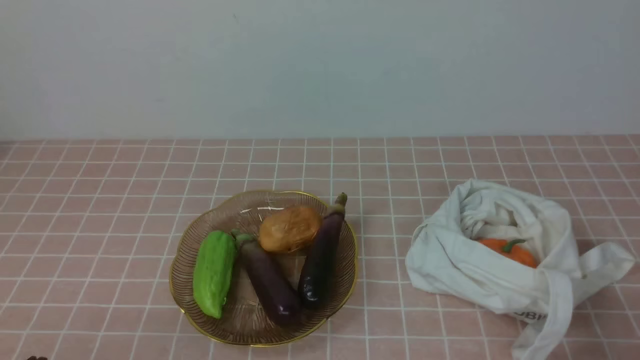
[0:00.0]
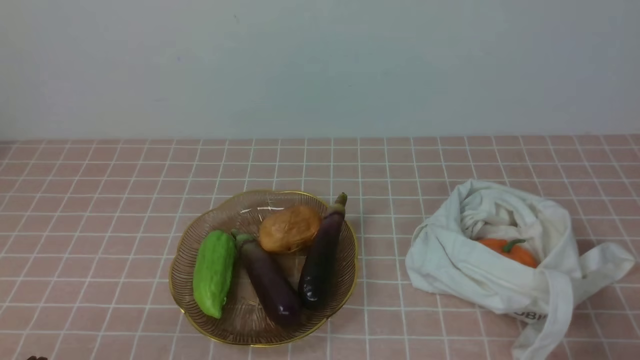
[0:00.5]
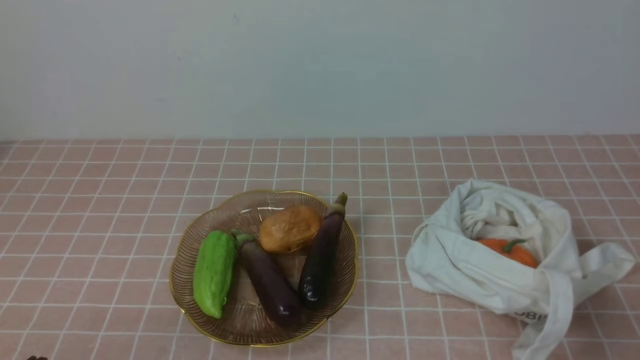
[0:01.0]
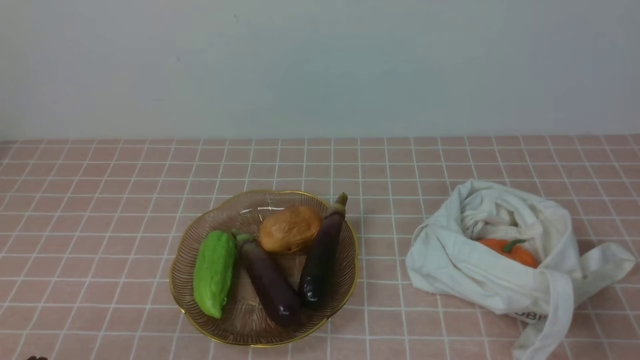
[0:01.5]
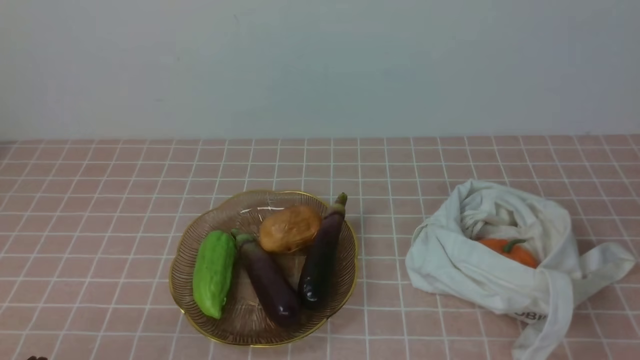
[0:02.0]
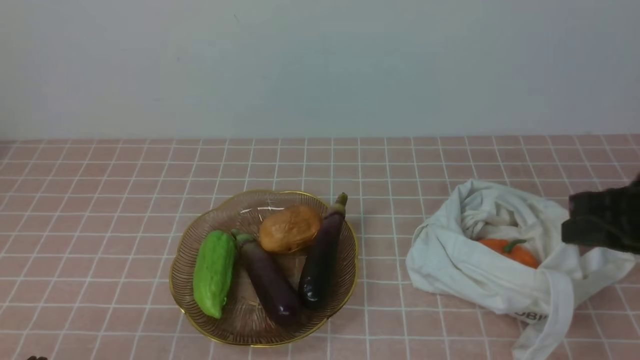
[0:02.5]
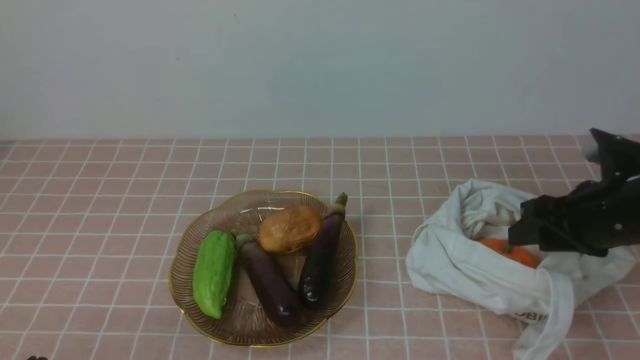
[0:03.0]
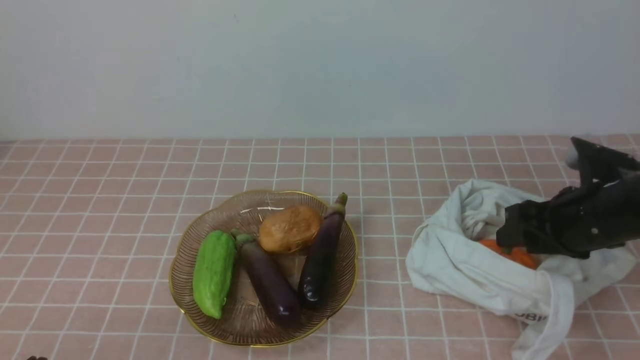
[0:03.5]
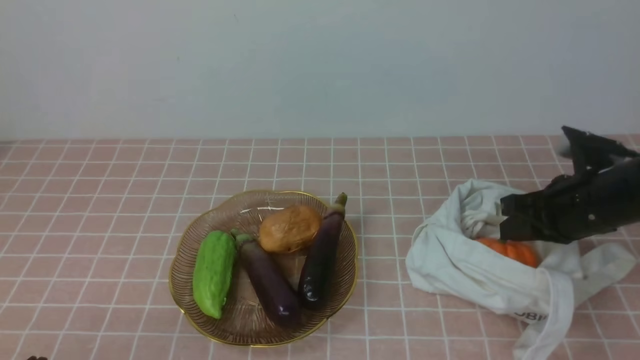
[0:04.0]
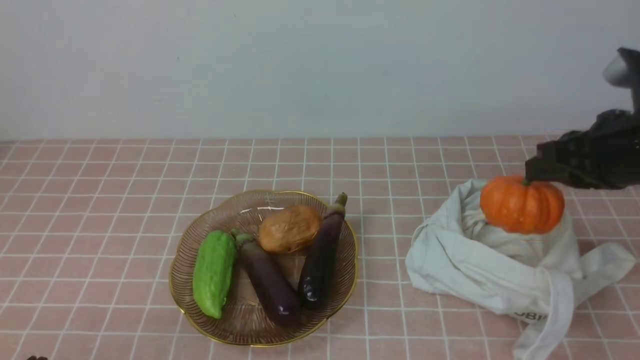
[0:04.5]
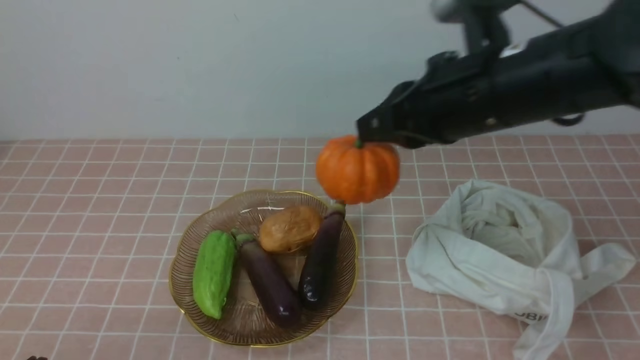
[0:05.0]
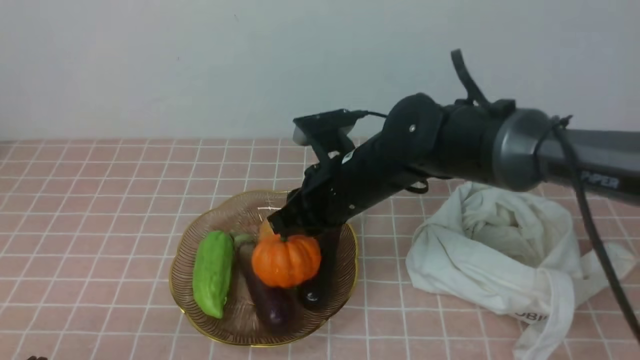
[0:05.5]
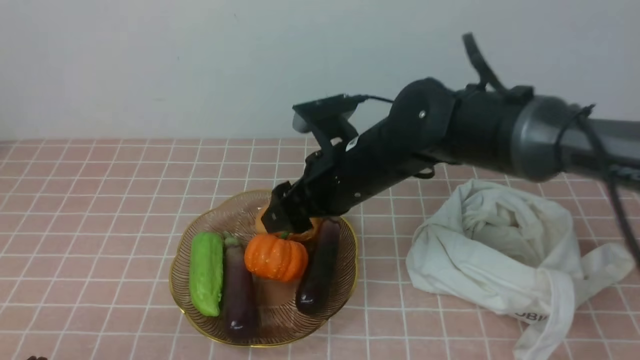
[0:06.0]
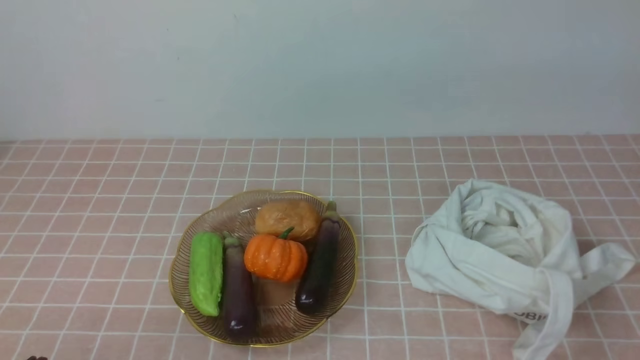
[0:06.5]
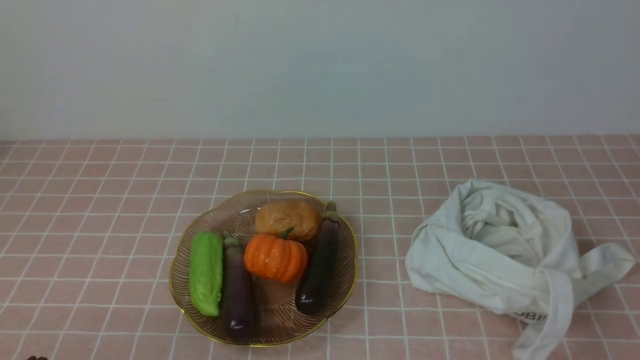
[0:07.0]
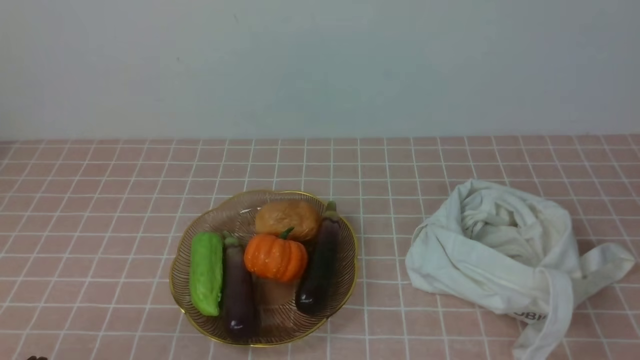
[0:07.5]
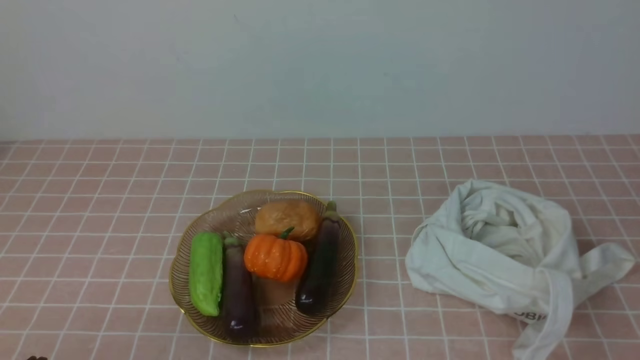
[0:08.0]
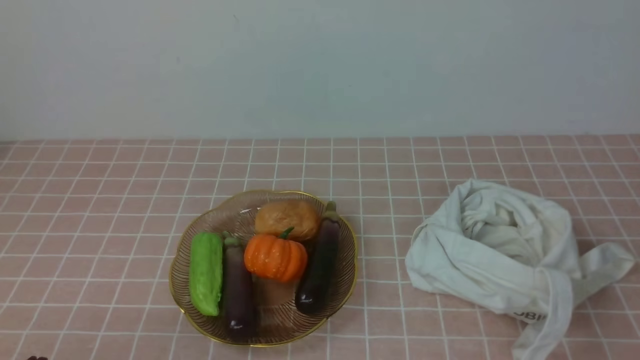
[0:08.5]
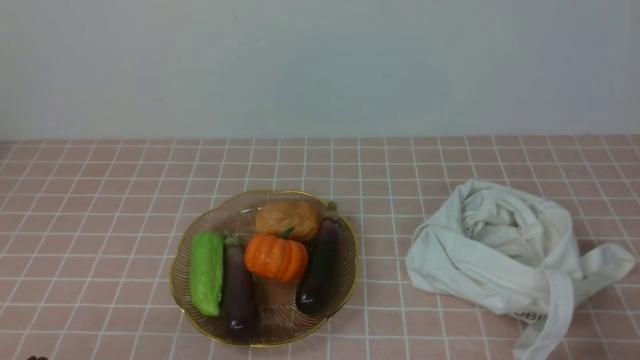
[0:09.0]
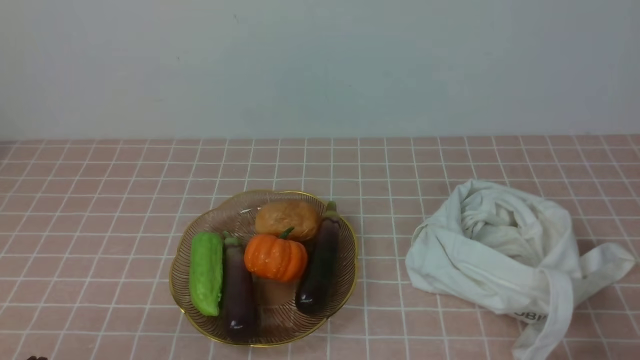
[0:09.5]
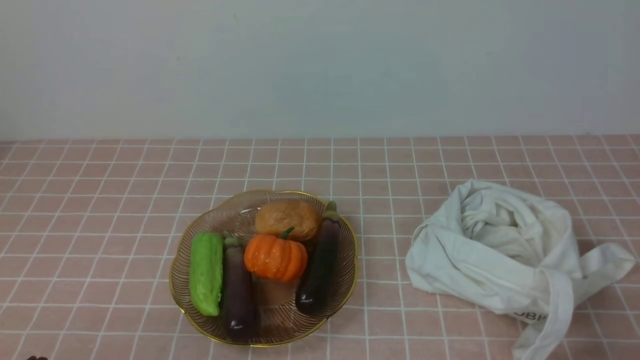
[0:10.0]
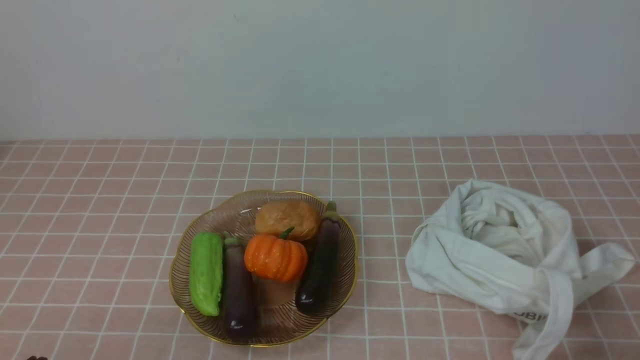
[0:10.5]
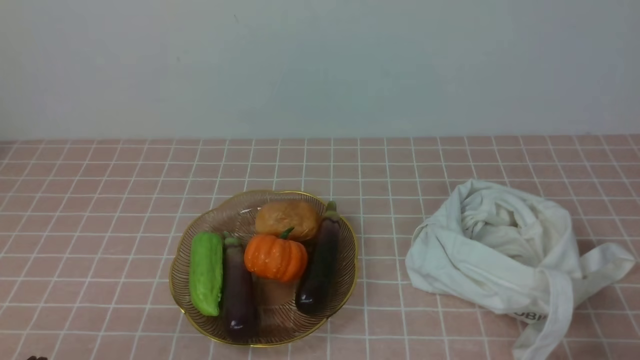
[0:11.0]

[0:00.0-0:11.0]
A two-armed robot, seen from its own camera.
Task of the whole recording: take vegetables from bag on pink coffee tablecloth place on plate.
Step, 0:00.0 to 0:03.5: Grasp the pumpkin with right gripper.
Step, 0:04.0 to 0:06.0: Place the pumpkin on the plate with right gripper.
0:02.0 to 0:03.5: The right gripper shifts about 25 cm forward and downward, and opens.
0:03.5 to 0:05.5: The right gripper goes about 25 cm to the left, and closes.
0:05.5 to 0:07.5: The right gripper is displaced backward, to the right and upward by approximately 40 cm, and opens and closes again.
0:09.0 to 0:11.0: The two grippers keep their place.

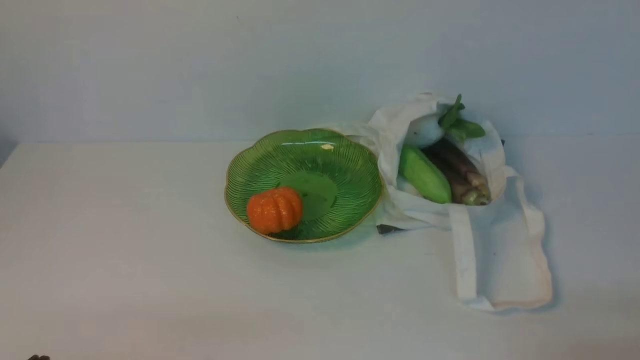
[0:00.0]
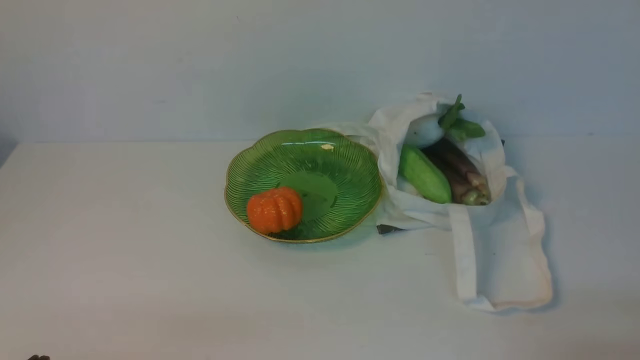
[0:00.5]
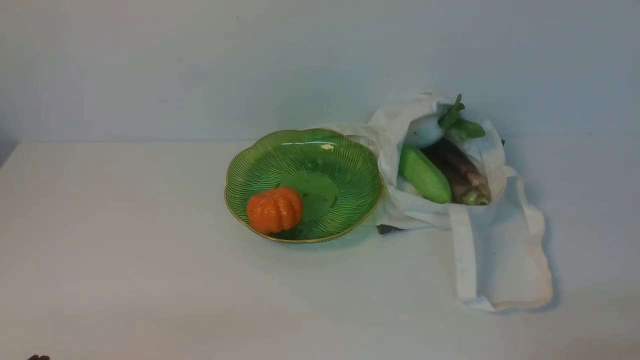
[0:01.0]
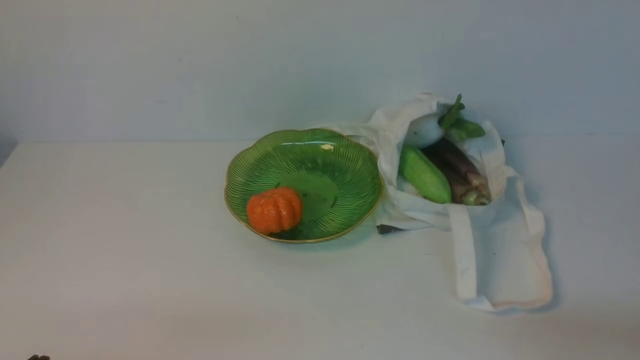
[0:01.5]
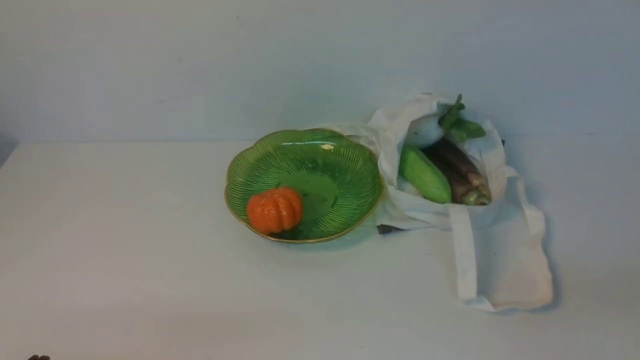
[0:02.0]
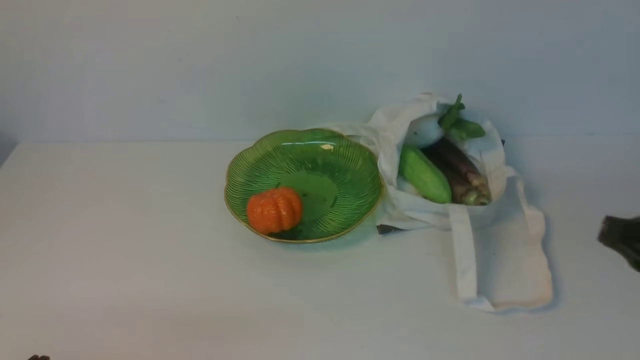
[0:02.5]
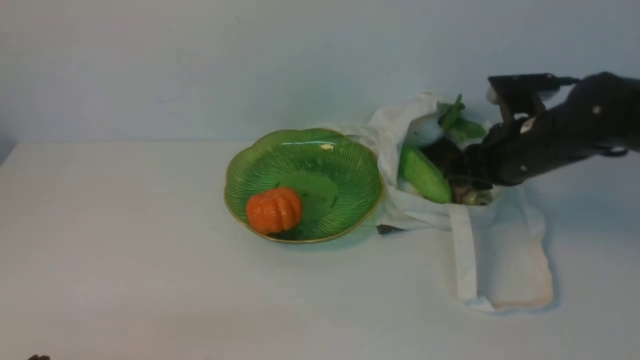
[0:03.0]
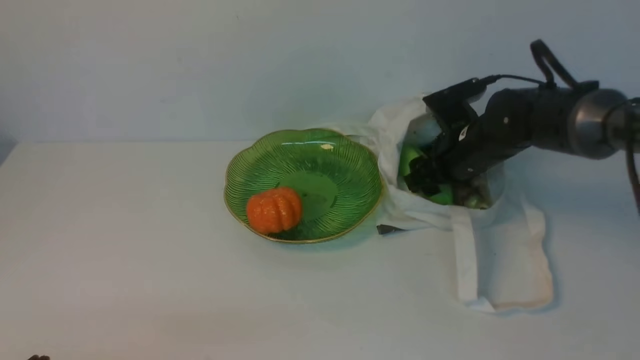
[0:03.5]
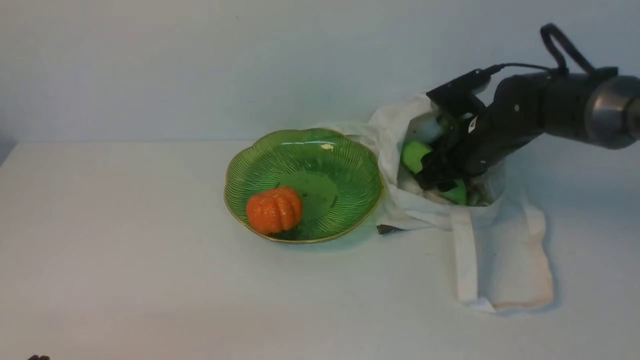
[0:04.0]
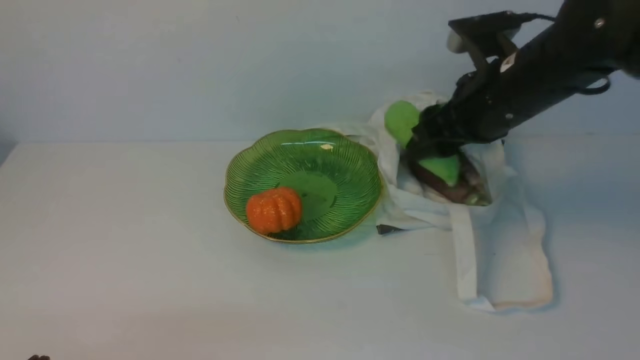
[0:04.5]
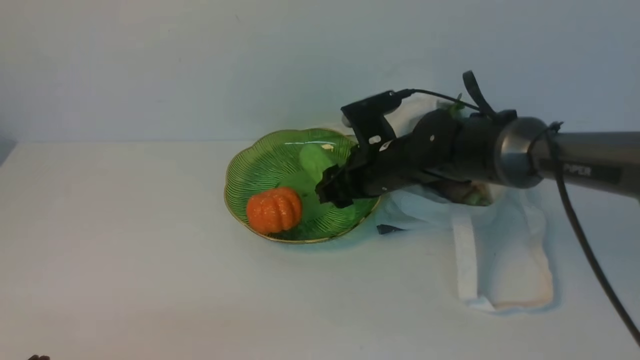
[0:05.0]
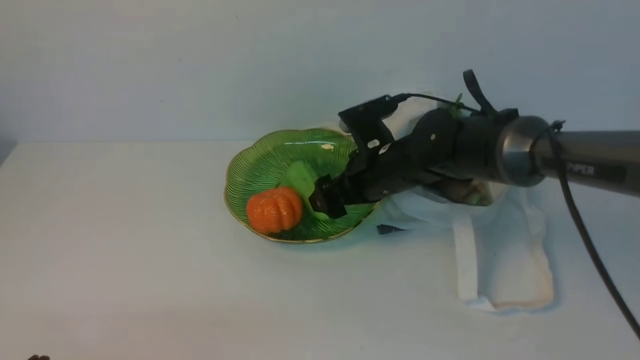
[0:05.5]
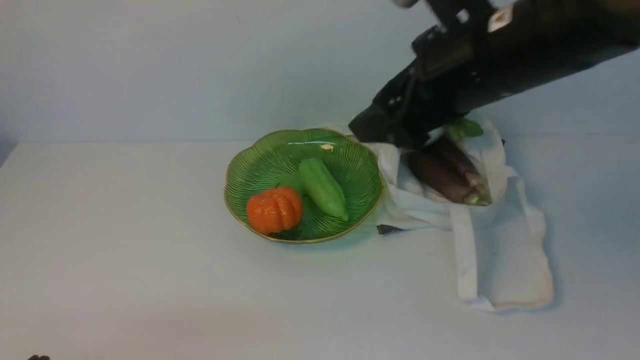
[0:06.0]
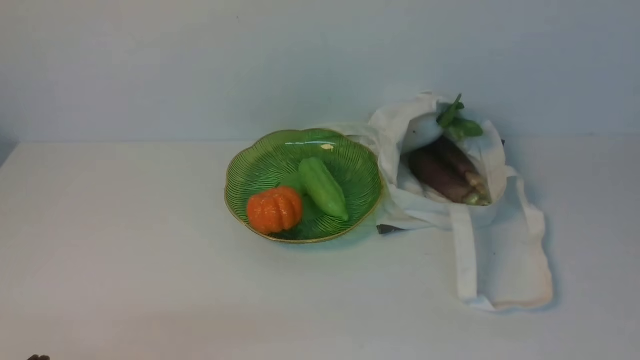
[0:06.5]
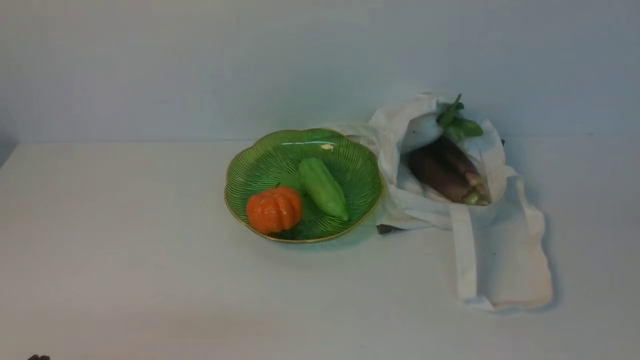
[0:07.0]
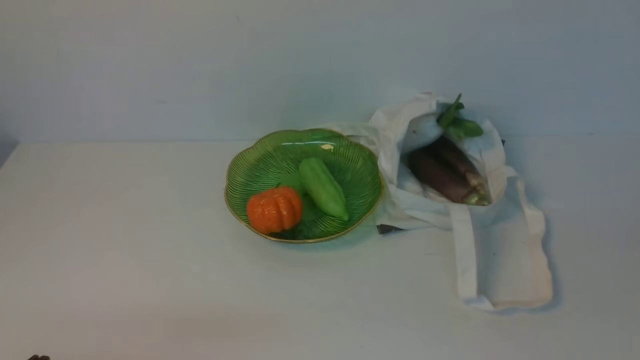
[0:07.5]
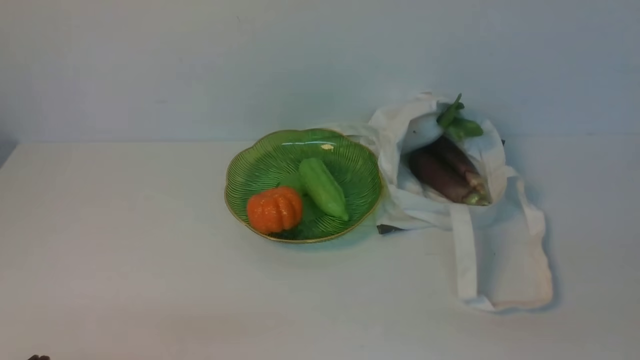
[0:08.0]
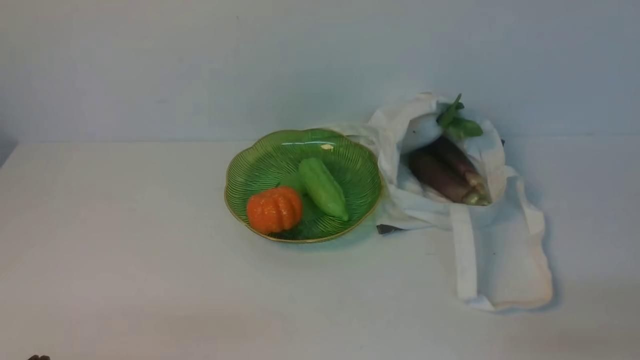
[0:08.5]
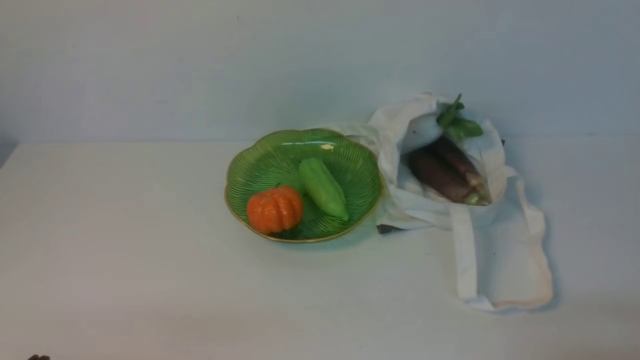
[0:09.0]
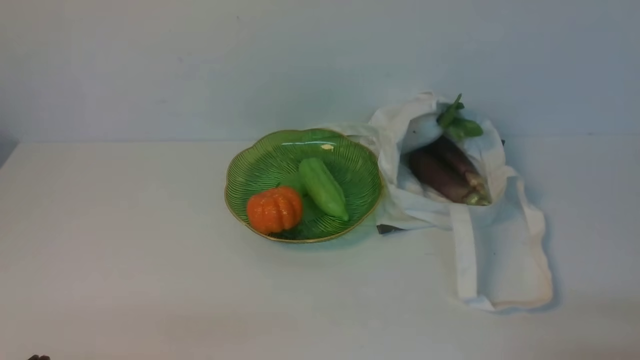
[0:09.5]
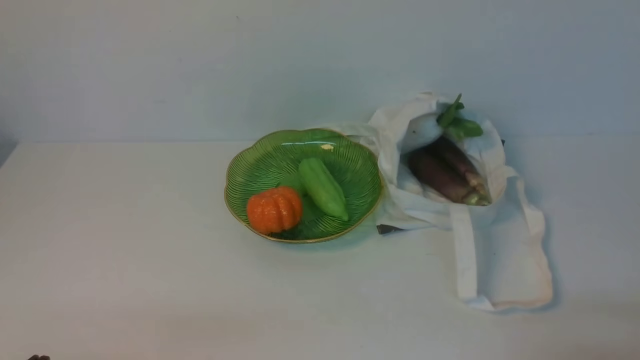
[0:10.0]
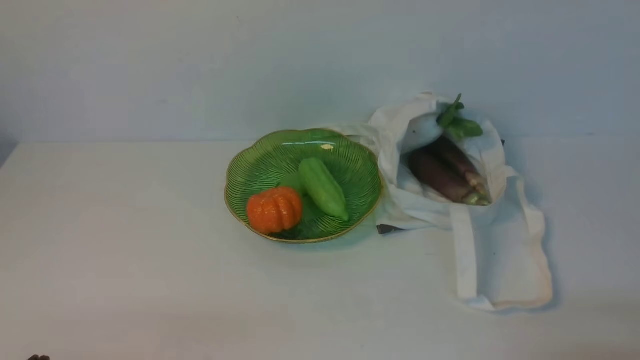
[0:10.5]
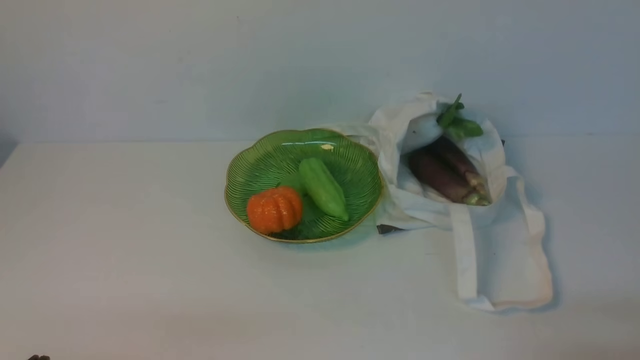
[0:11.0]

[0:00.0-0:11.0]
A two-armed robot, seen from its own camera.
Task of the whole recording: take vegetables from cloth bag on white table place on plate.
Step, 0:00.0 to 0:03.5: Grasp the bitter melon with right gripper.
Step, 0:04.0 to 0:05.5: Place the bitter melon on the plate with right gripper.
0:02.0 to 0:03.5: The right gripper heads forward, covering roughly 35 cm, and opens.
0:03.5 to 0:05.5: The right gripper travels to the left by about 10 cm.
0:05.5 to 0:07.5: The right gripper moves backward and to the right, about 40 cm, and closes up.
0:09.0 to 0:11.0: Both grippers stay put.
